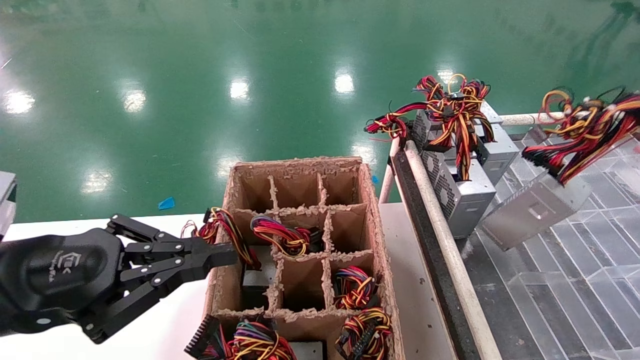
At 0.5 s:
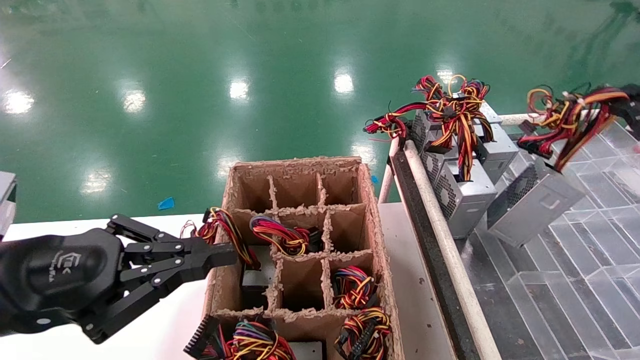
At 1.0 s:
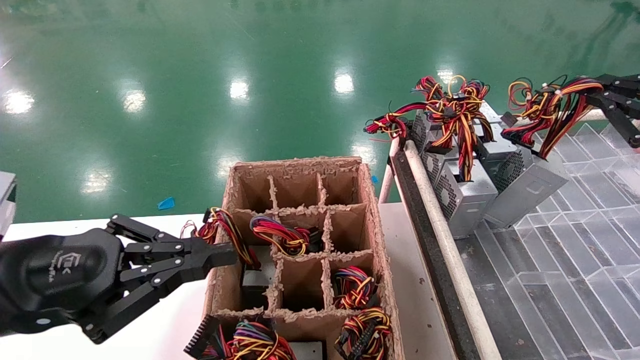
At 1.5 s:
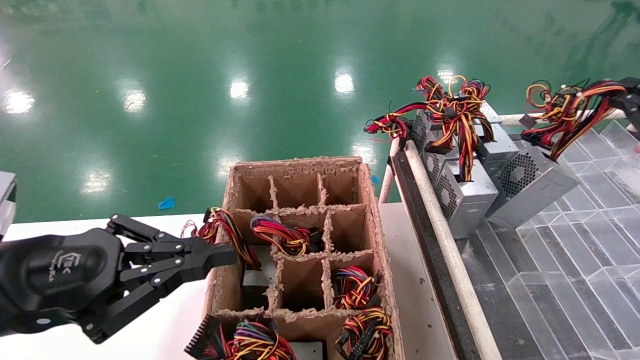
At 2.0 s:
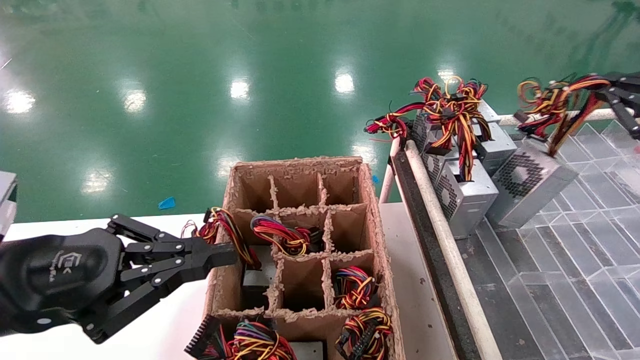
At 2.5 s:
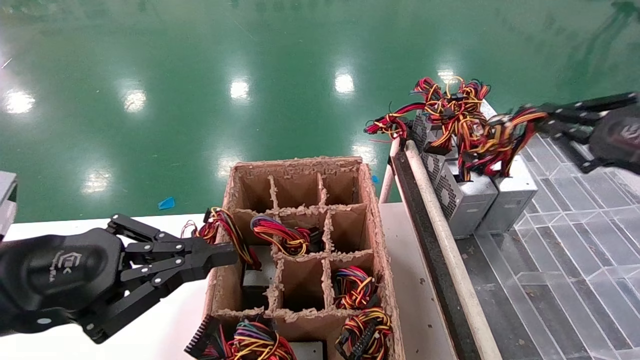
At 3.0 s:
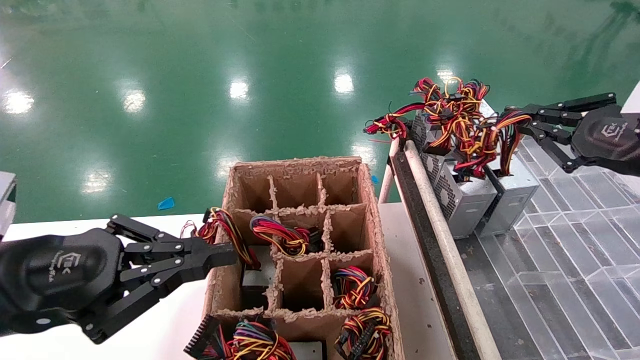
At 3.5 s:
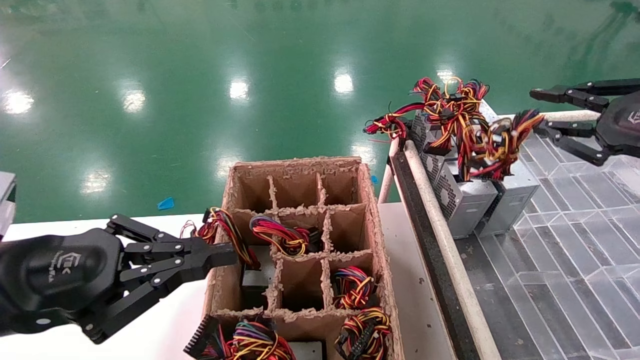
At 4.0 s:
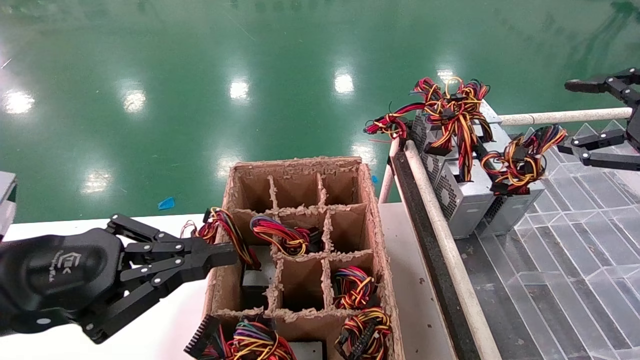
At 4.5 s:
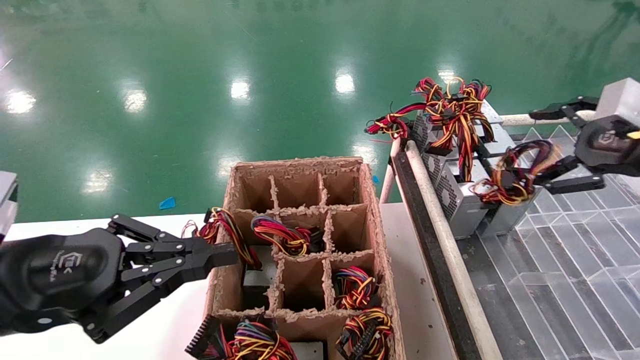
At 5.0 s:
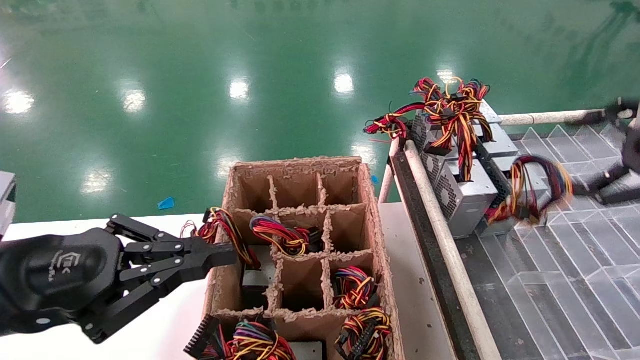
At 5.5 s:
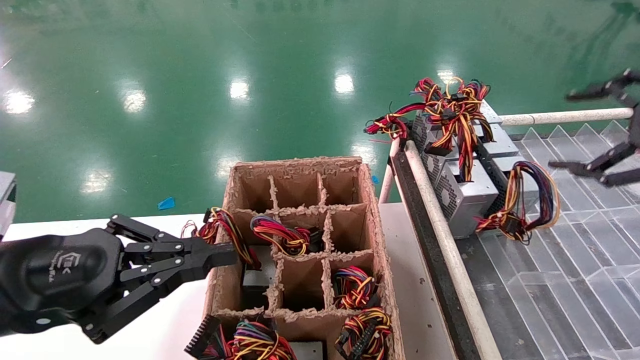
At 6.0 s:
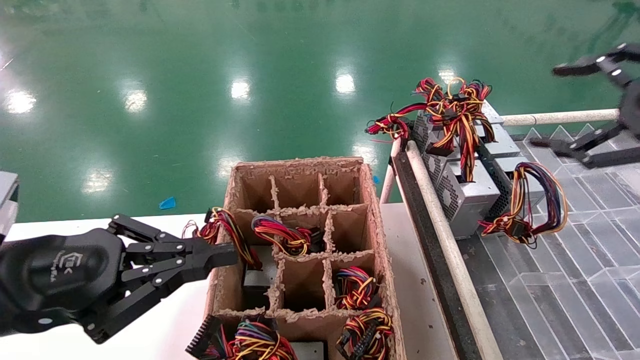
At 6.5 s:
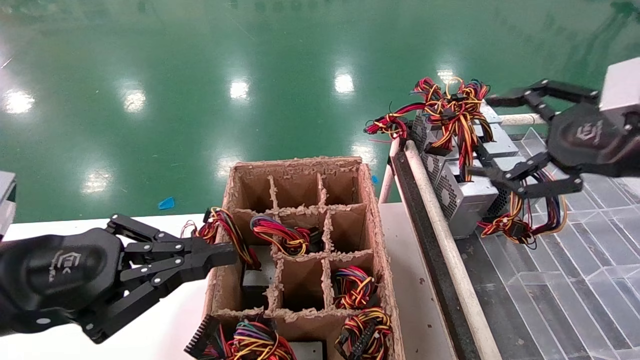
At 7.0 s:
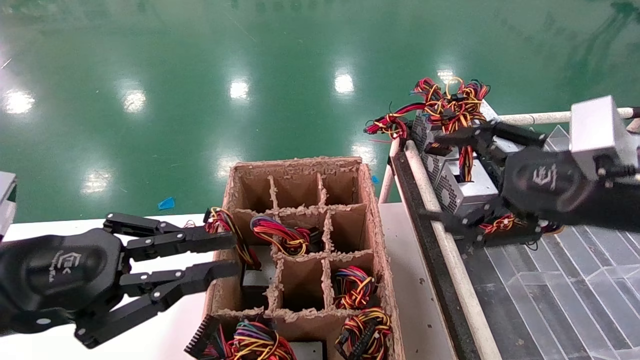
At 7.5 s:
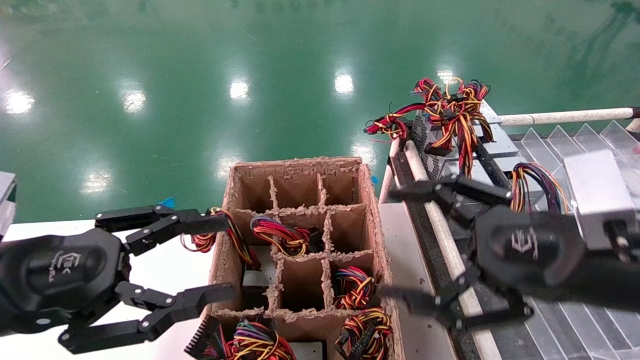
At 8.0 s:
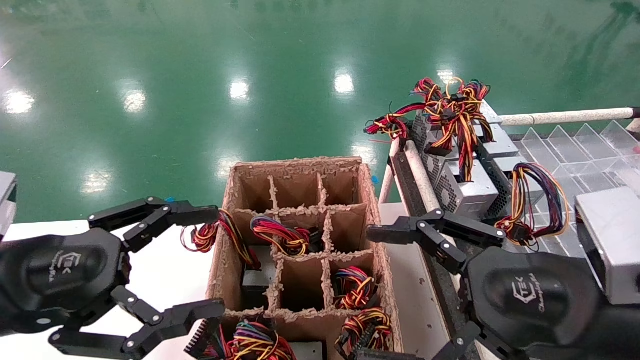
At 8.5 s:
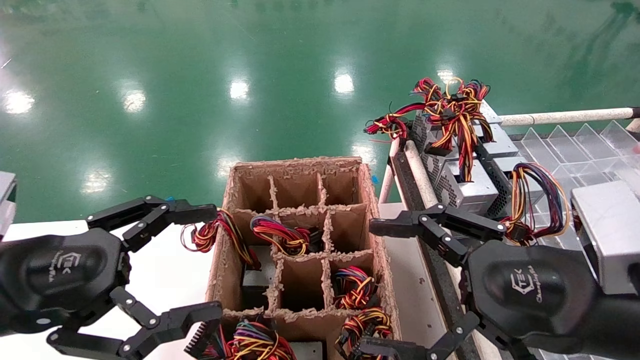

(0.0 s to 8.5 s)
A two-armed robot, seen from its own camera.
Step, 0.0 s - 4.5 s: Place the main unit power supply in the designated area.
0.0 s - 2.0 s: The right gripper goes roughly 10 cm forward.
2.0 s - 4.0 s: The right gripper opens its fingers.
4.0 s - 6.5 s: The right gripper moves to the left, roughly 10 cm, and opens up.
6.5 s - 8.5 s: The right gripper moves to the left, downward and backward, roughly 20 cm; the left gripper opens.
